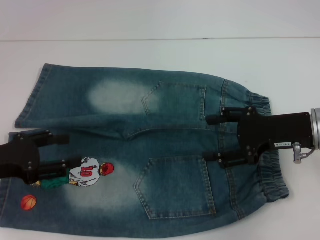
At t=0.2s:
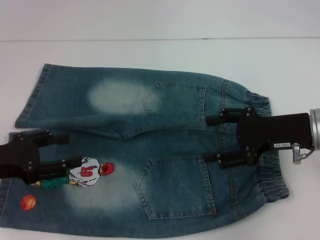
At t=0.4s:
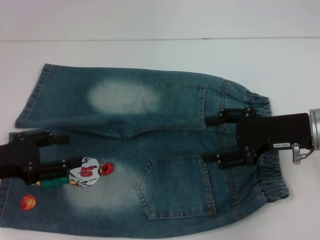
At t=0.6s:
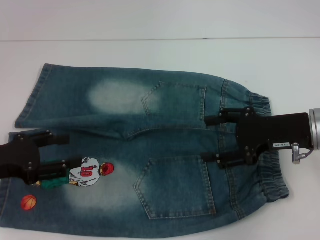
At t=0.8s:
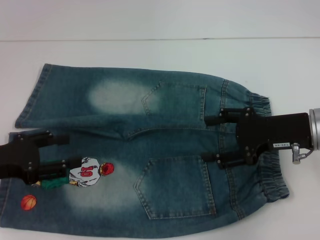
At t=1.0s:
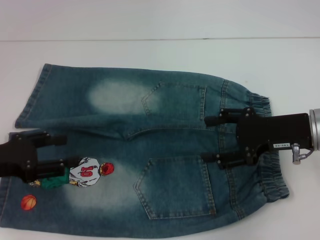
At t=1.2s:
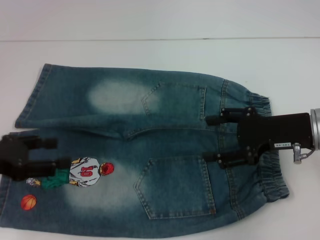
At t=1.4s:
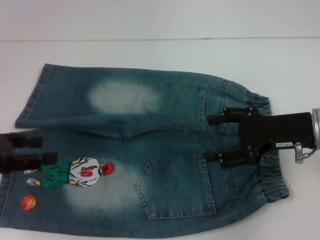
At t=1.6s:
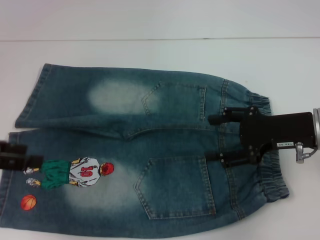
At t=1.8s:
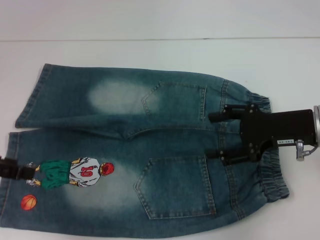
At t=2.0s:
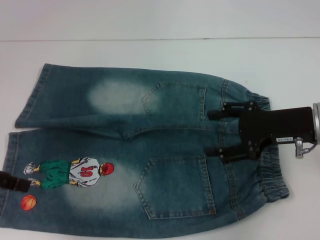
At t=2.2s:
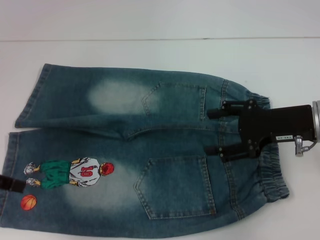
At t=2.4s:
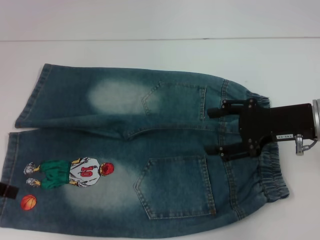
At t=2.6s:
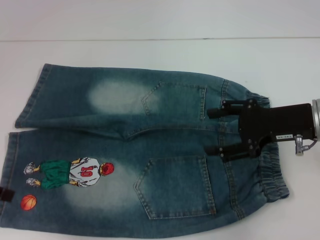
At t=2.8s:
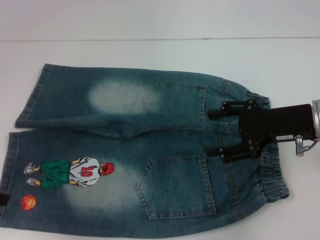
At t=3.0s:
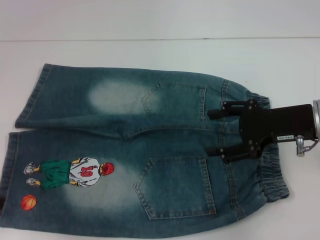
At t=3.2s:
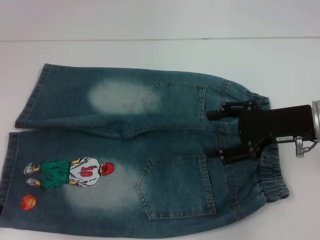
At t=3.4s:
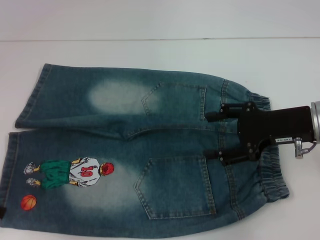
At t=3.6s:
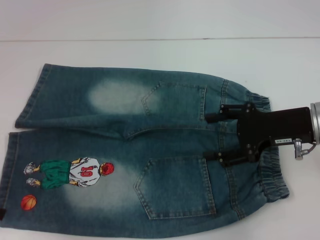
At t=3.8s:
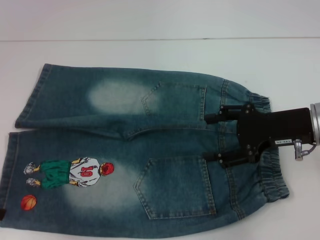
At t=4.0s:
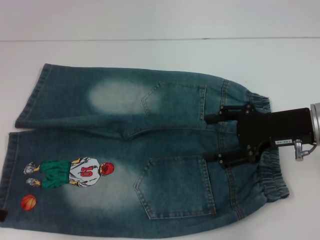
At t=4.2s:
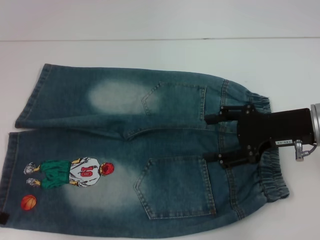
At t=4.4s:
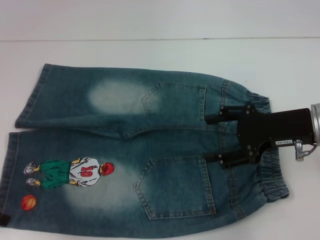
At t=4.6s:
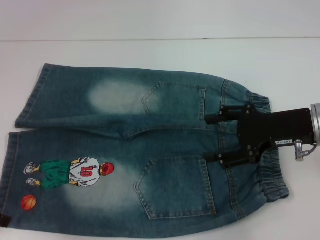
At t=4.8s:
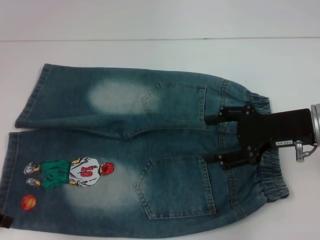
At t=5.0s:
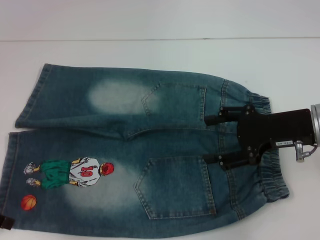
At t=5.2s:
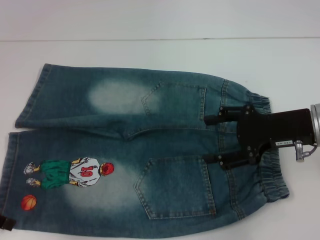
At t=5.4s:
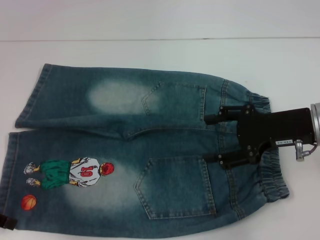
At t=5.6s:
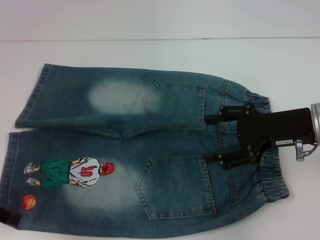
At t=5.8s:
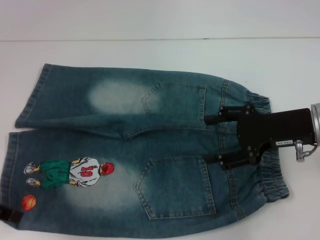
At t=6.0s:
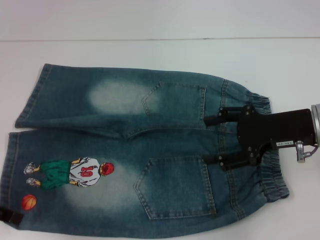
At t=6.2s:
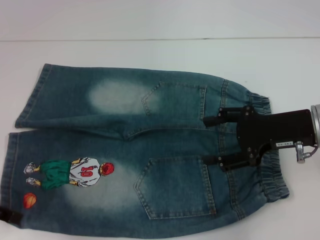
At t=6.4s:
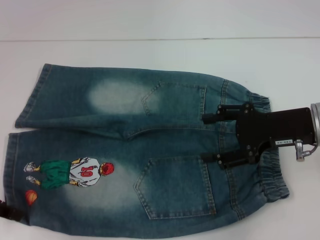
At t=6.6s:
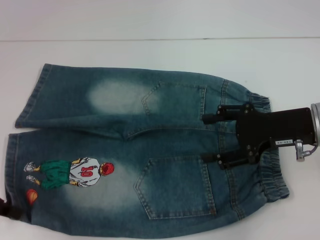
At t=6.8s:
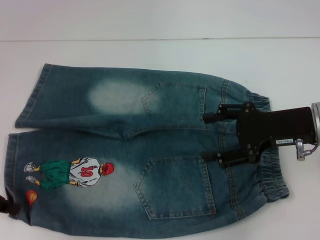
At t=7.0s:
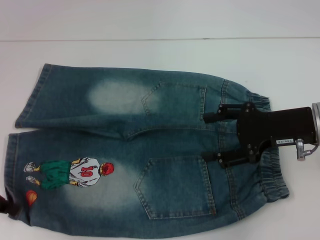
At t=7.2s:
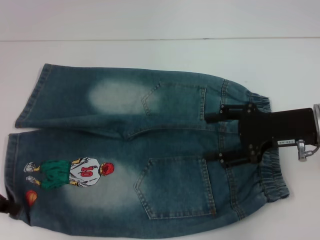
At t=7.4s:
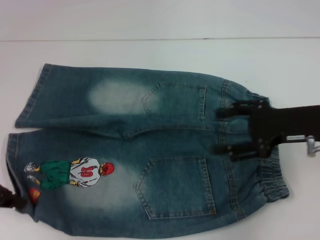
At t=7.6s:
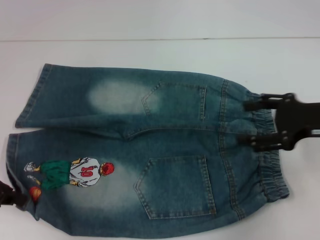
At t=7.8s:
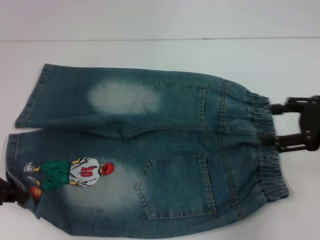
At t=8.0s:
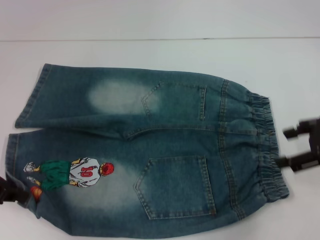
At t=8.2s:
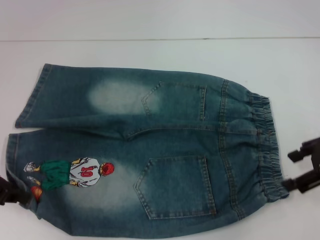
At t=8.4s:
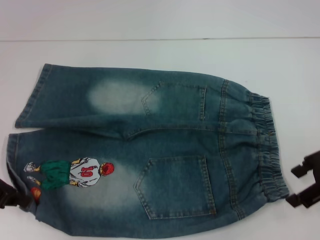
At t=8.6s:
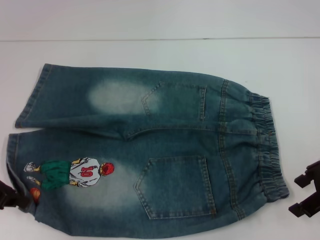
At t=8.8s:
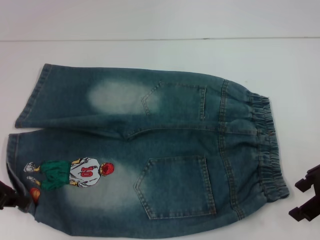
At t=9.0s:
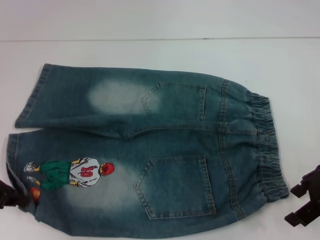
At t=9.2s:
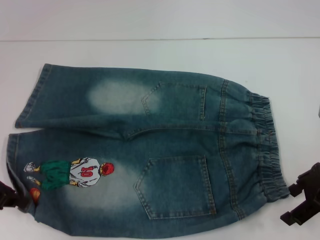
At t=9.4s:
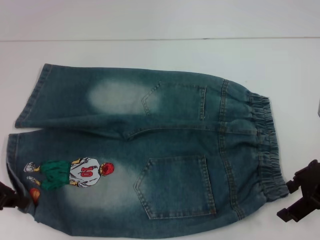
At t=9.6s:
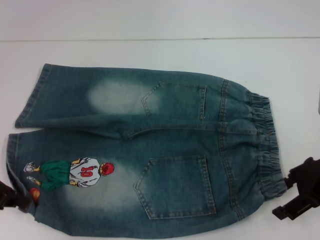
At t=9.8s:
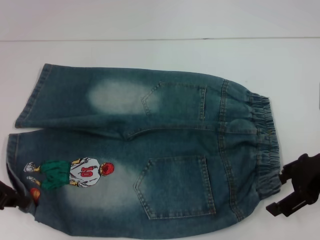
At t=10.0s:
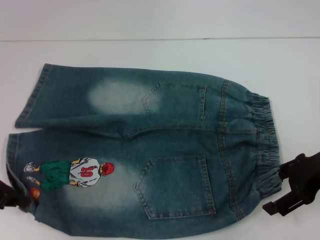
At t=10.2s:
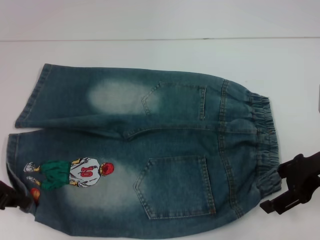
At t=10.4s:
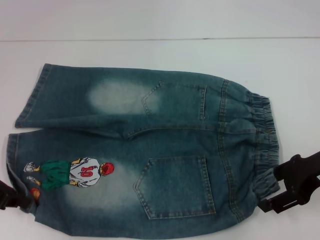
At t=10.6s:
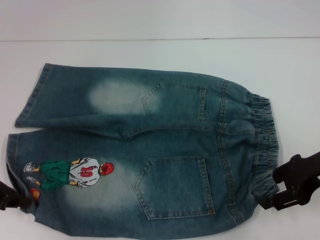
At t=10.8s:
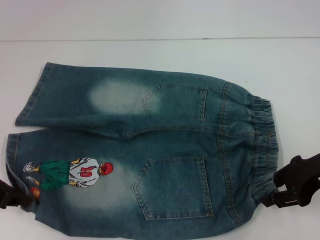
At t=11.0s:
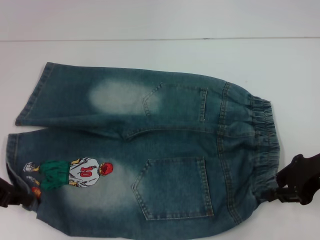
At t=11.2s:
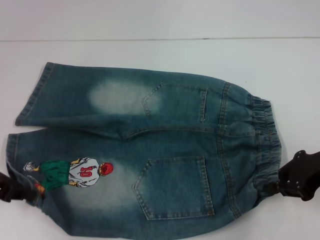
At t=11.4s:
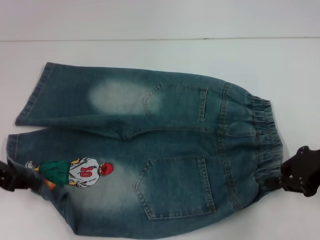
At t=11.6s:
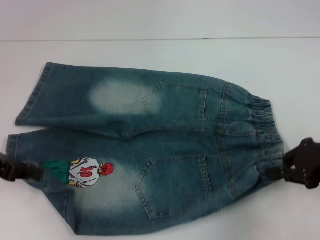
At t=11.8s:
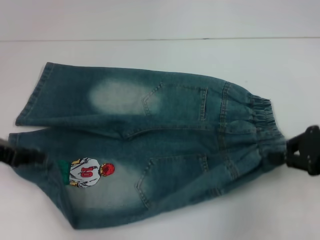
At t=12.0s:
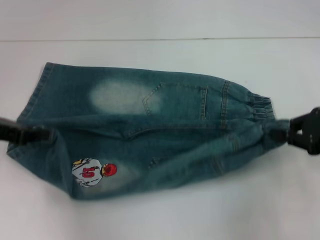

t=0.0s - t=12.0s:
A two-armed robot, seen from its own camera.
Step, t=0.0s - t=6.6s: Grab the lower left pant leg with your left hand.
Step, t=6.8s - t=10.6s: Hold the lower right waistband with your right hand.
t=0.0s - t=1.6s: The left gripper goes some 10 cm upward.
t=3.0s - t=6.0s: The grippers stay close to where they were, moving slightly.
t=6.0s - t=7.6s: The right gripper changes place by about 5 cm. Meanwhile the left gripper closes its fingers.
t=9.0s - t=10.4s: The grippers move only a little.
t=10.4s - t=12.0s: The right gripper ends up some 5 cm from where it was, and closes.

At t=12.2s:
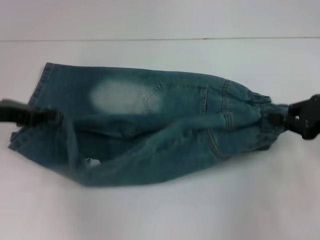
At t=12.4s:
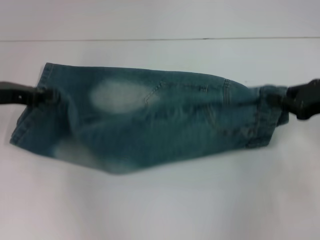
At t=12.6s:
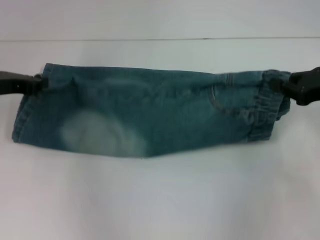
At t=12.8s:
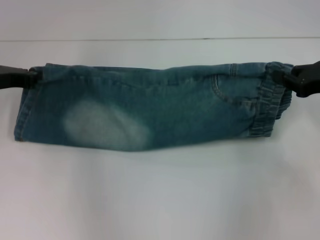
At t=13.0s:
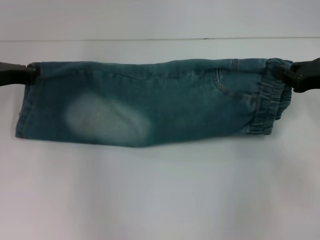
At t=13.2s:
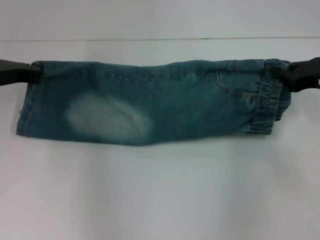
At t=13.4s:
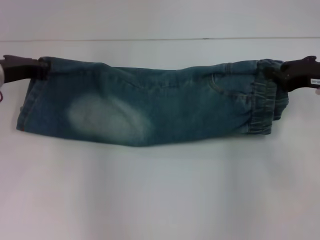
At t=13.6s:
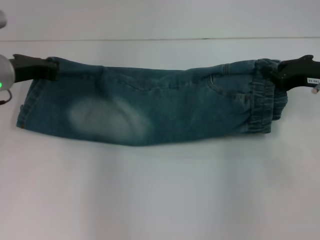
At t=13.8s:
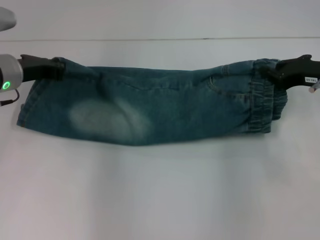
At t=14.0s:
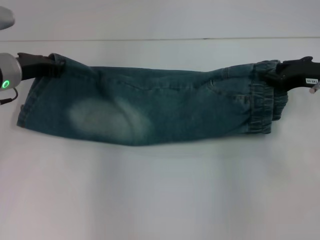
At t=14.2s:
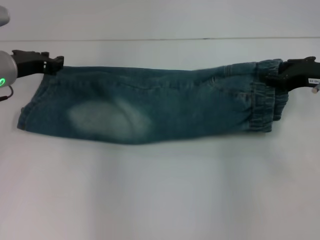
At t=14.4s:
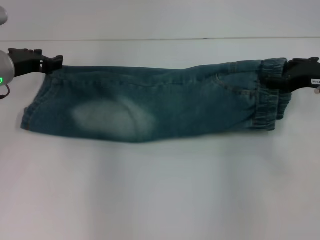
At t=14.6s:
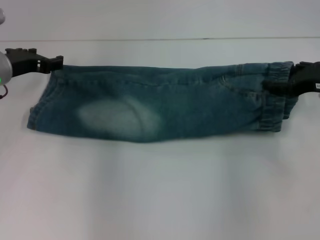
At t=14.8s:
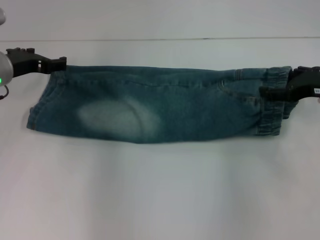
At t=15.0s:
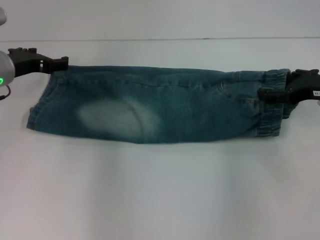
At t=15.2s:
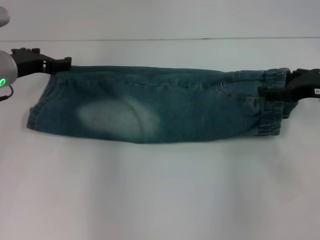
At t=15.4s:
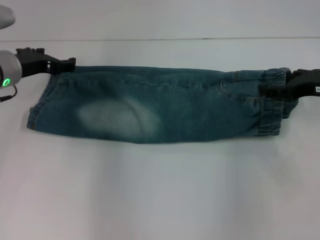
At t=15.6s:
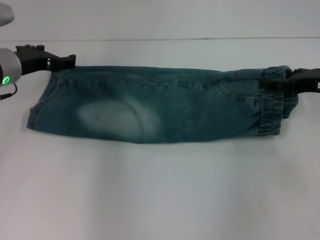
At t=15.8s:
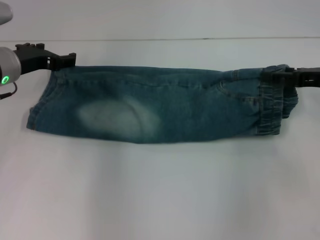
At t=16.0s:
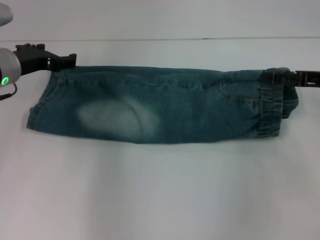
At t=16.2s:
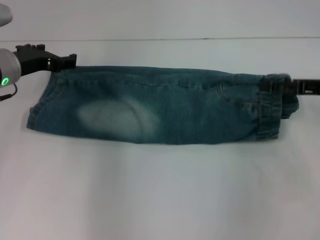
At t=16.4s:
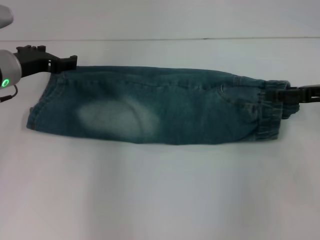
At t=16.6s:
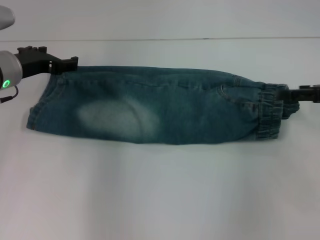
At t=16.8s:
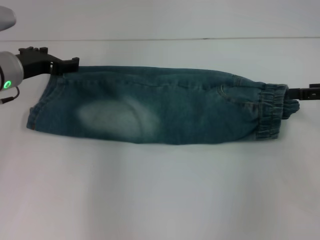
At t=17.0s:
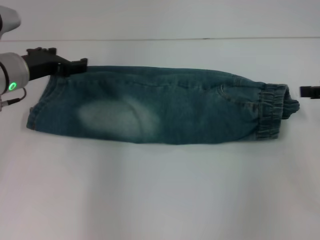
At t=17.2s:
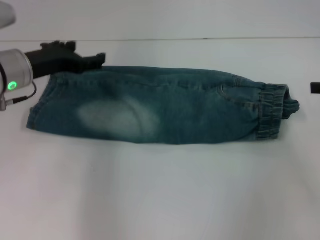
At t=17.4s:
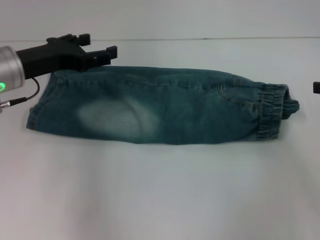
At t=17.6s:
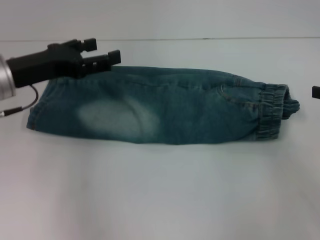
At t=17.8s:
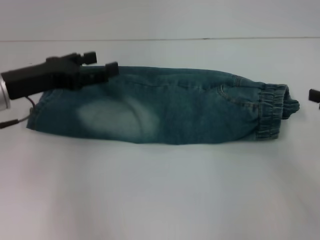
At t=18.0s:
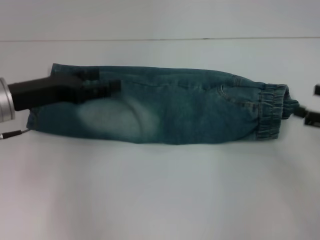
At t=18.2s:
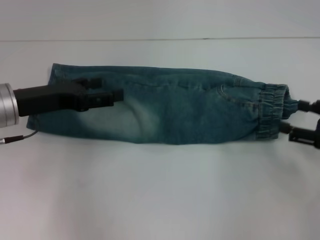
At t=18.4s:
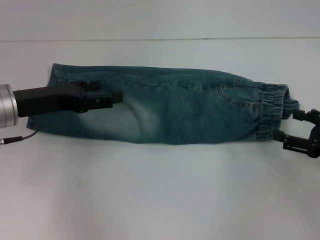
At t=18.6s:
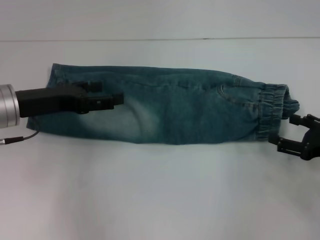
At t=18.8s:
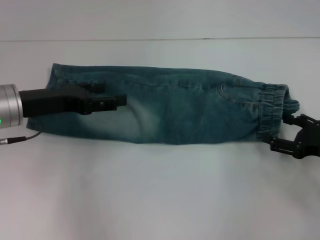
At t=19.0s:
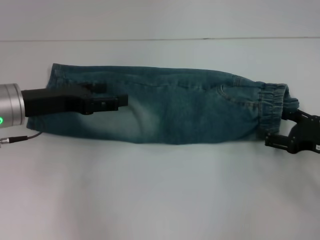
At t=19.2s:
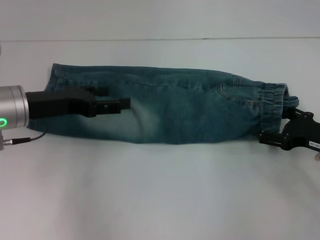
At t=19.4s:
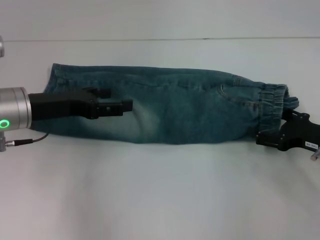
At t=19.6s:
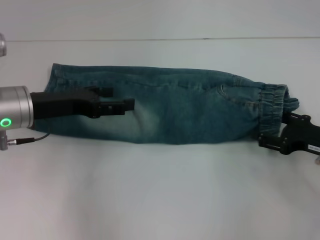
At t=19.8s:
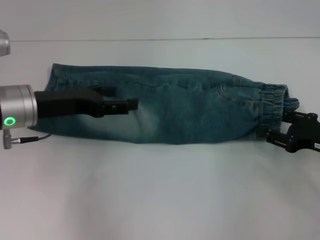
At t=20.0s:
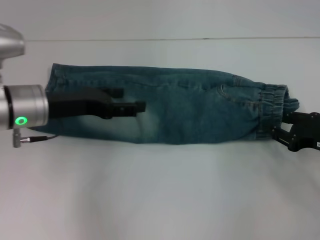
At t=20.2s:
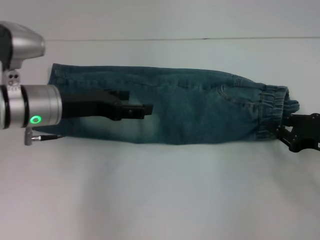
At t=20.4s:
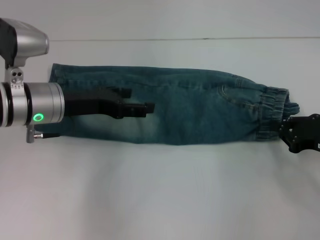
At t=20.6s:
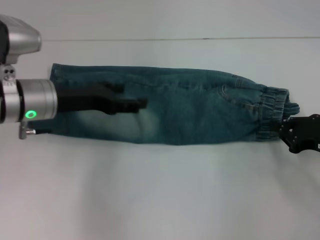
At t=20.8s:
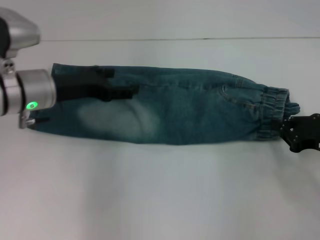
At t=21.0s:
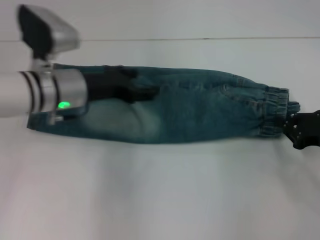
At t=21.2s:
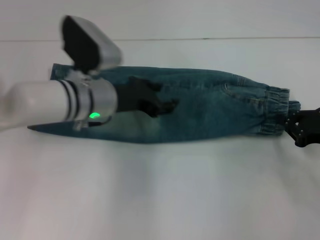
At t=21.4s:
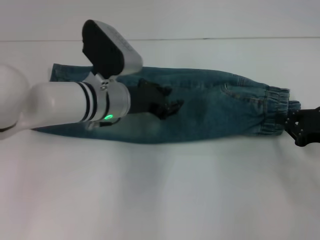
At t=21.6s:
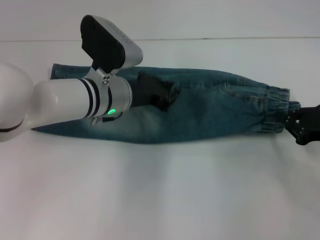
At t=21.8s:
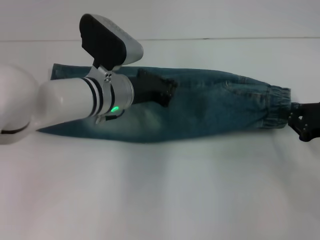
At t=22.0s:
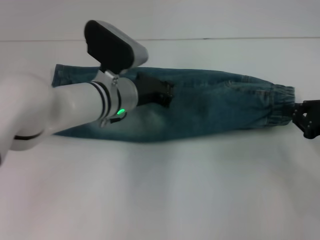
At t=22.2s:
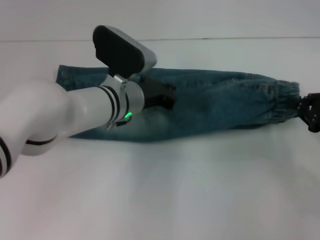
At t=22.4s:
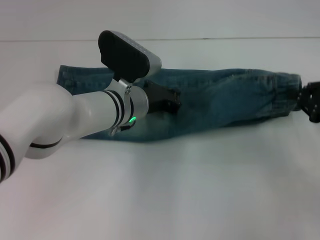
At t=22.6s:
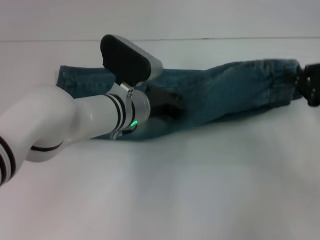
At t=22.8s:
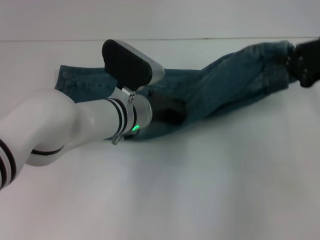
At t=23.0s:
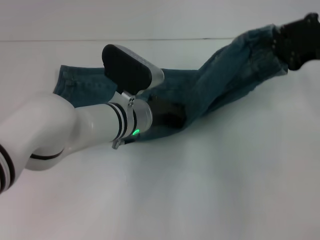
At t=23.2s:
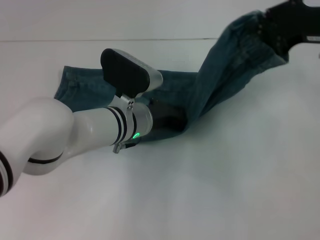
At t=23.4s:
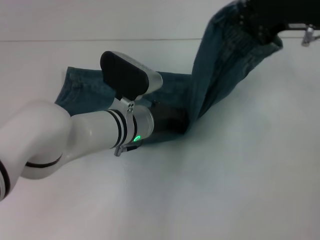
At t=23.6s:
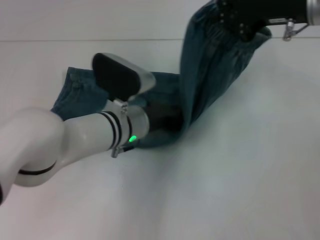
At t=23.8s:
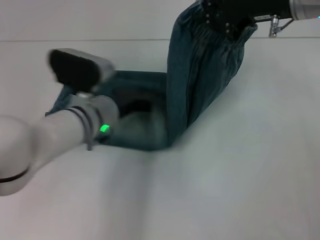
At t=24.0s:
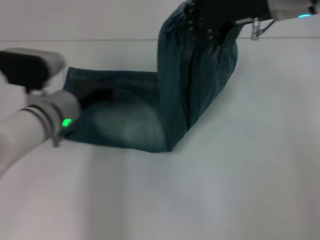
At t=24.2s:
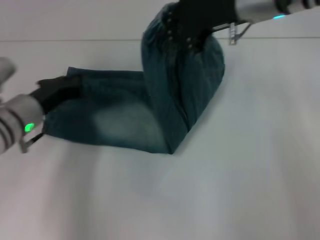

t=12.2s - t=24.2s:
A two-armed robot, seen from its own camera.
Step, t=12.2s - t=16.6s: Fold upward with your right hand.
Step, t=16.8s - t=20.4s: Grab the waistband with your right hand.
Step, t=20.6s - t=23.6s: Press the middle of the pants with your left hand.
t=12.2s - t=13.8s: The left gripper shifts approximately 10 cm forward and to the right, while the right gripper heads forward, covering about 5 cm.
t=13.8s - t=15.2s: The right gripper opens its fingers. The left gripper opens.
t=16.6s - t=18.2s: The right gripper shifts approximately 10 cm backward and downward. The left gripper travels backward by some 5 cm.
t=19.8s - t=21.2s: The left gripper heads to the right, covering approximately 10 cm. Meanwhile the right gripper closes up.
t=21.2s - t=22.6s: The left gripper travels to the right by roughly 5 cm, and closes its fingers, while the right gripper moves upward, some 10 cm.
t=22.6s - t=24.2s: The right gripper heads to the left, upward and forward, covering roughly 25 cm; the left gripper travels to the left by some 15 cm.
